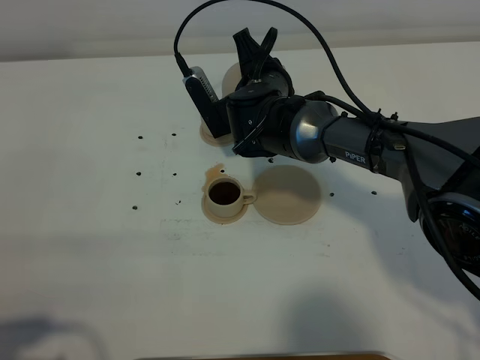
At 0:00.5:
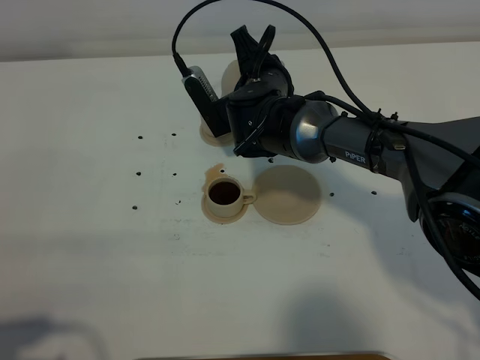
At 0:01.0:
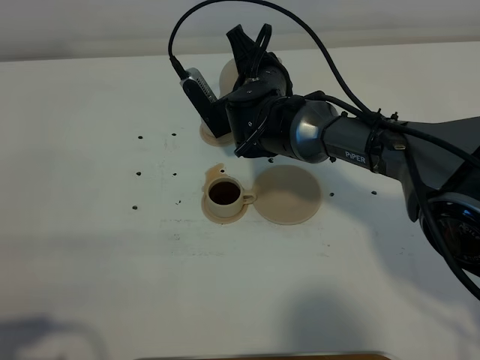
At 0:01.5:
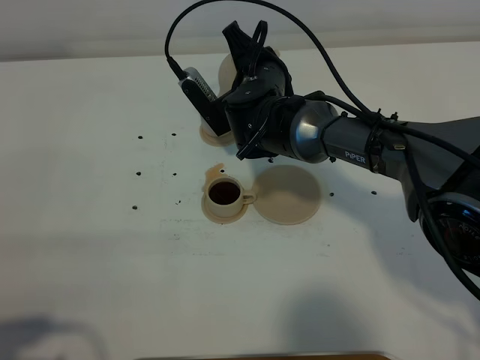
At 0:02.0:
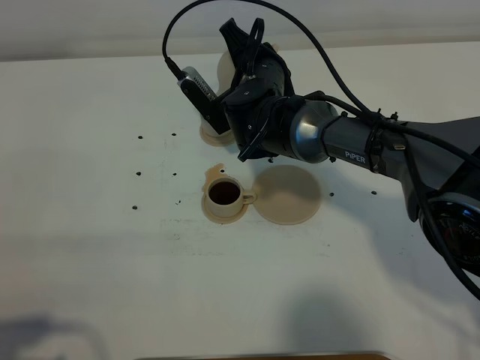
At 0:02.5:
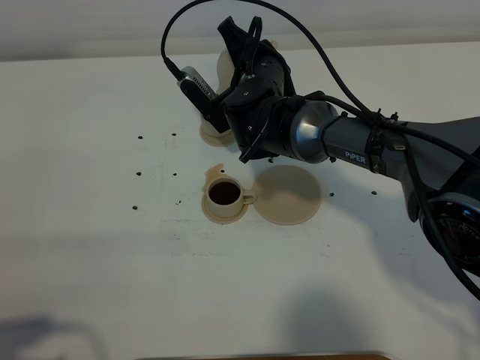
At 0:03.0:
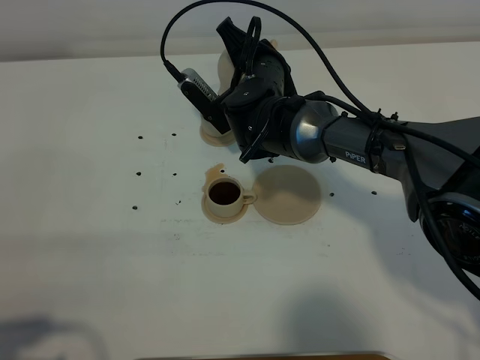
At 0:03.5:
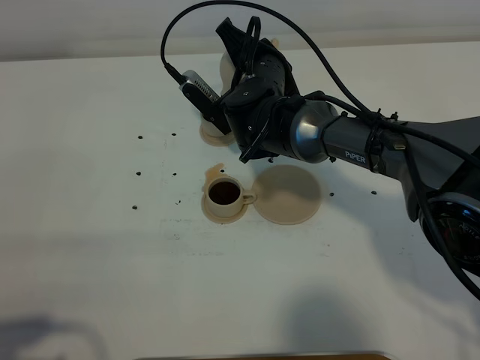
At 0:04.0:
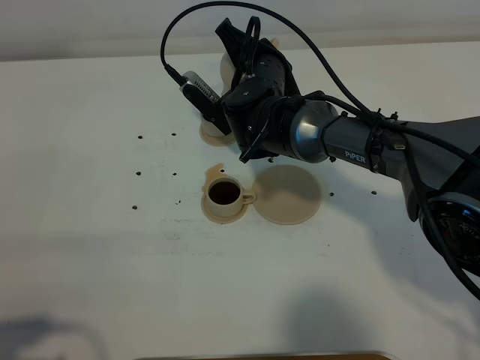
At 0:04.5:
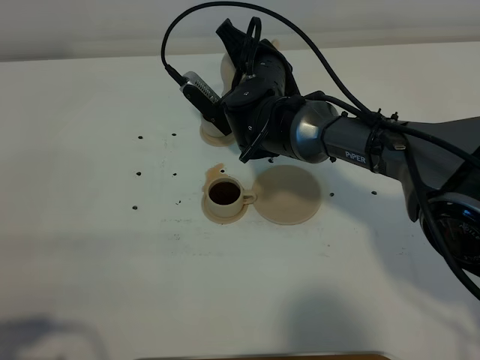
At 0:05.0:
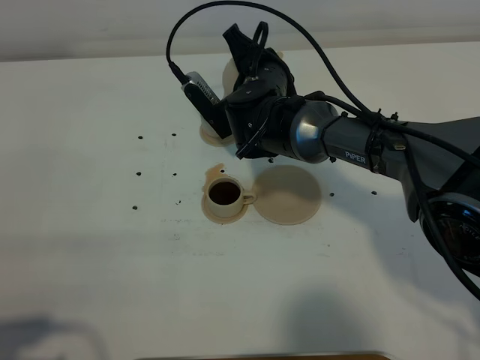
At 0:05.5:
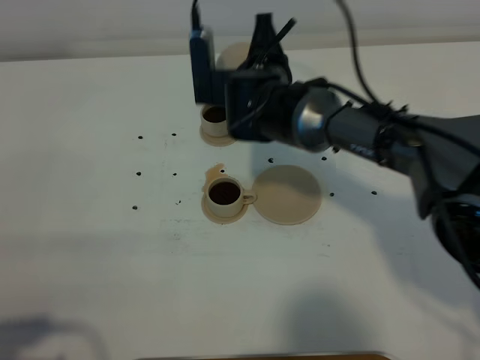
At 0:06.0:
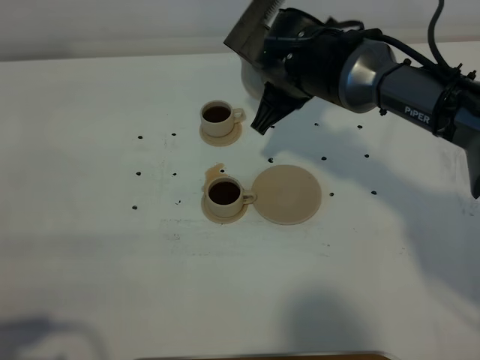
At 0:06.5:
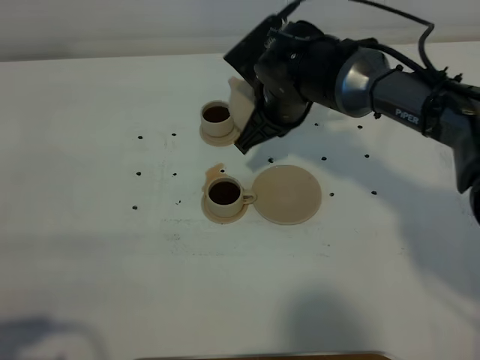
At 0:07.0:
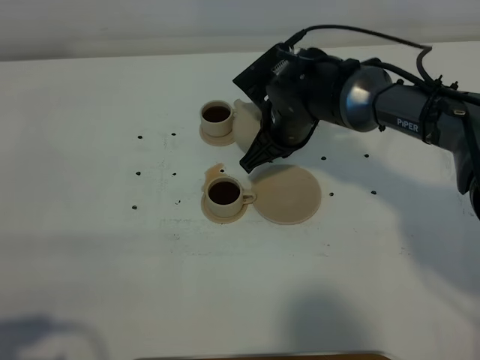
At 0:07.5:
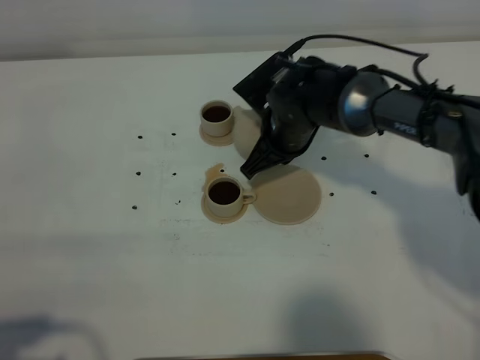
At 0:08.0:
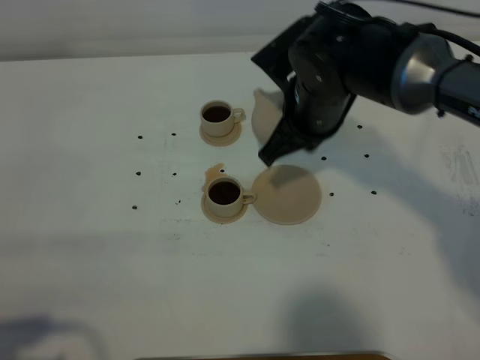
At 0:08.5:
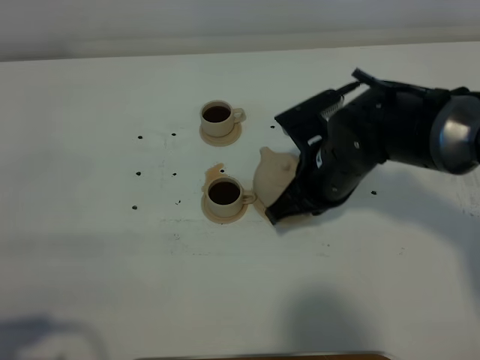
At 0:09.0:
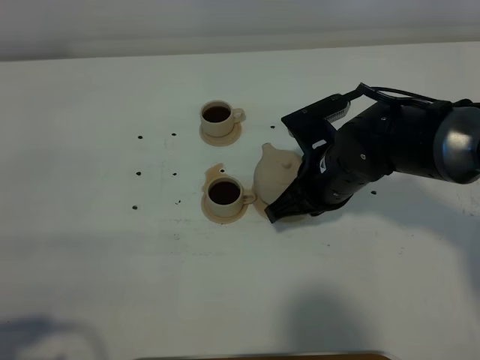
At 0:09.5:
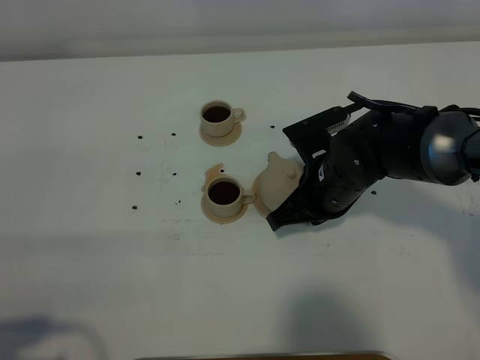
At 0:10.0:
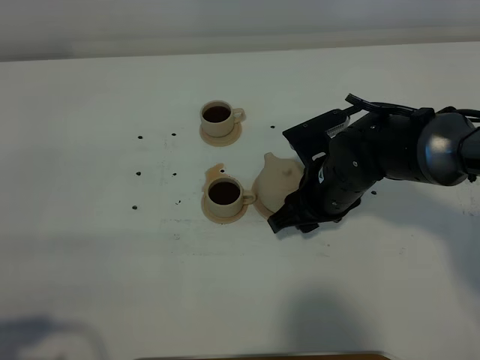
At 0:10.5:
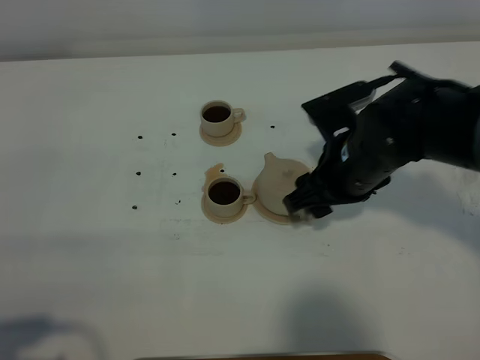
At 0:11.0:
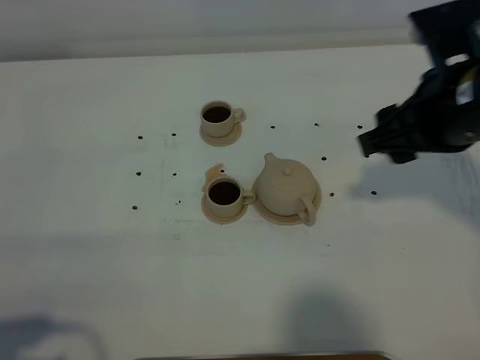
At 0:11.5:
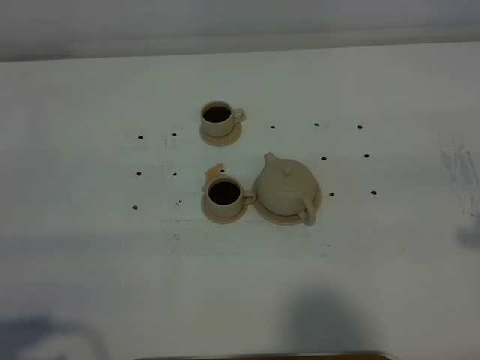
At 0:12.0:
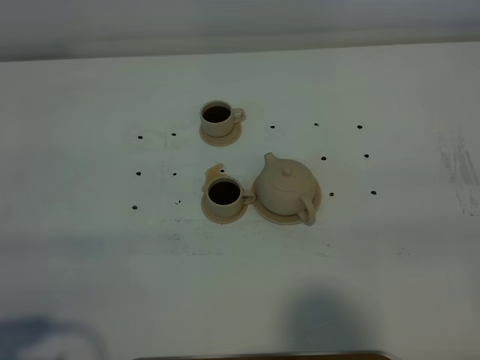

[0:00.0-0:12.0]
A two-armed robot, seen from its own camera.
Task of the whole recording: grasp the brown teapot and pour the tea into the two brown teacups one by one, put the brown teapot back in its original place.
Step, 0:00.0 to 0:05.0: Pour tea into the teacup with the right gripper.
0:00.0 to 0:04.0: The grippers move only a little.
0:04.0 to 0:06.0: The right gripper changes place by approximately 5 cm.
0:06.0 to 0:08.0: The right gripper travels backward by approximately 5 cm.
0:08.0 to 0:10.0: The right gripper moves downward, about 10 cm, and opens up.
0:10.0 to 0:12.0: The right gripper shifts roughly 35 cm backward, to the right and upward.

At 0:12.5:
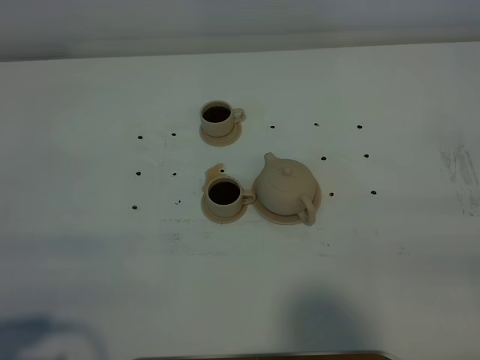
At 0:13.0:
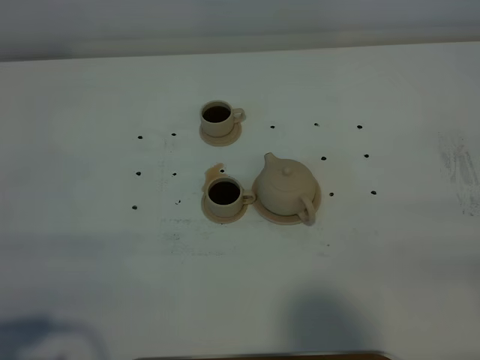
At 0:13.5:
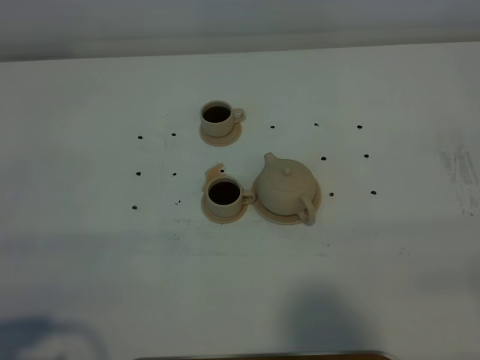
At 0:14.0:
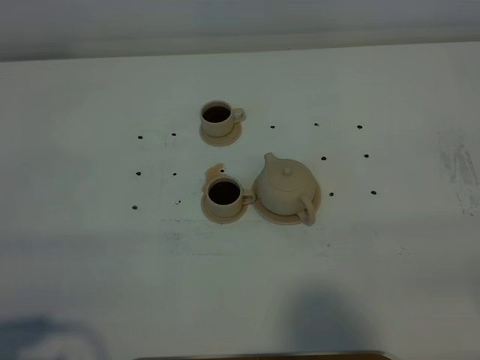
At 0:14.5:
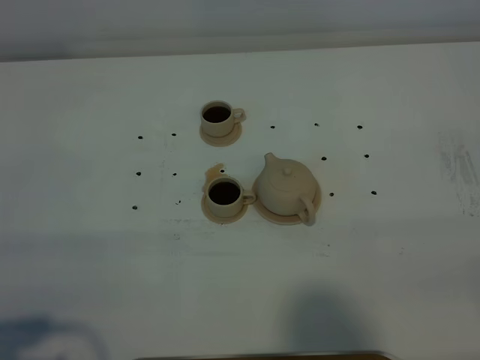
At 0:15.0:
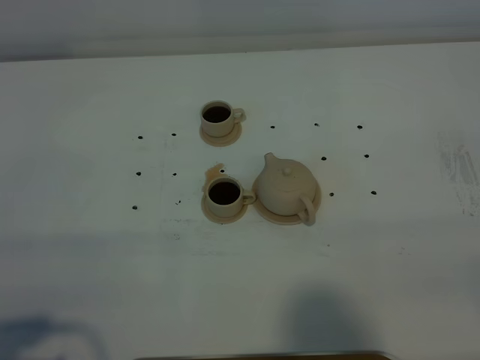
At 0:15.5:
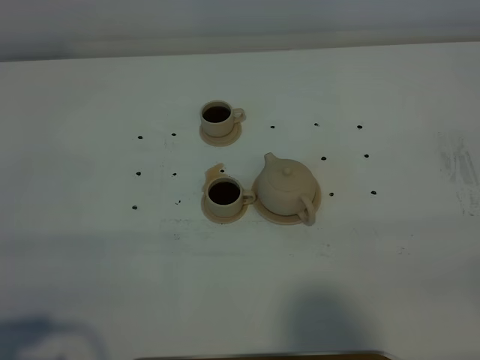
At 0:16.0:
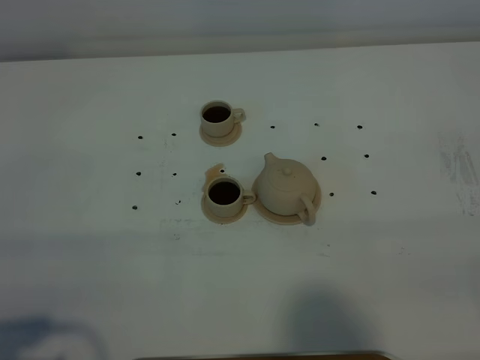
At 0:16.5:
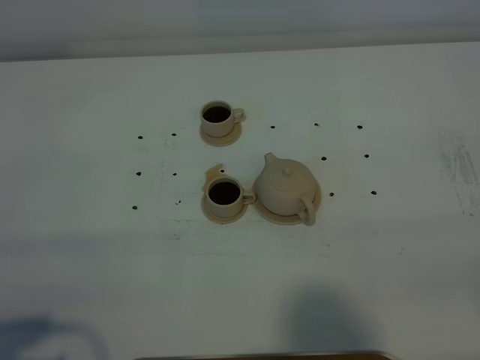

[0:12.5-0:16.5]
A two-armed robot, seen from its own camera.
Task of the whole recording: grasp the brown teapot and pour the tea into the two brown teacups one by one, put the brown teapot back in its original place.
0:14.5 to 0:16.5: Neither gripper changes place.
